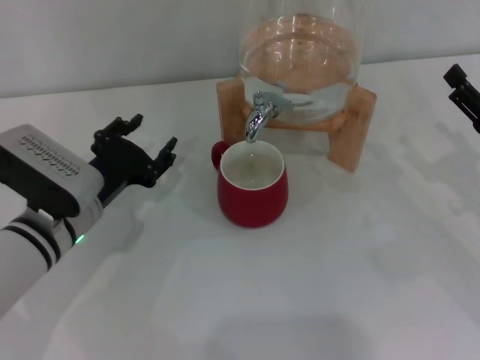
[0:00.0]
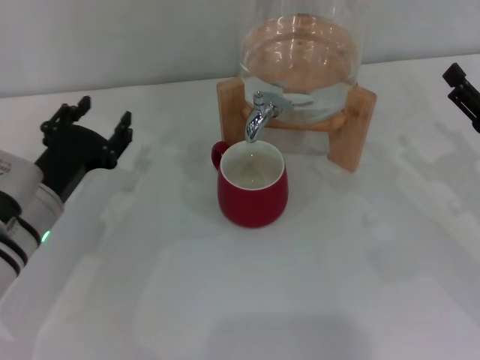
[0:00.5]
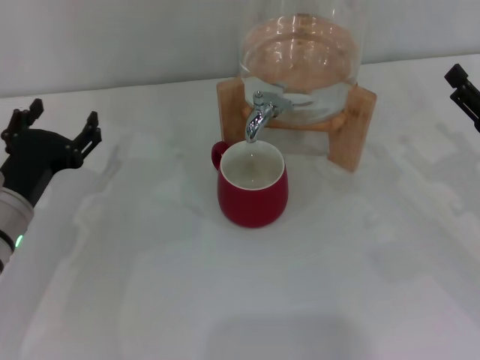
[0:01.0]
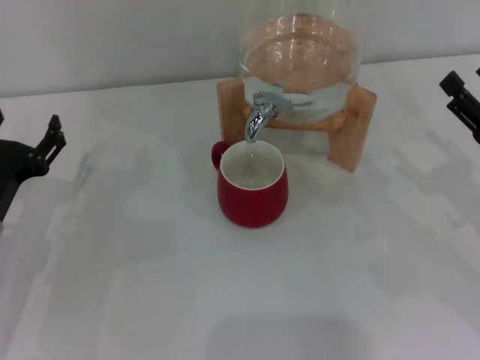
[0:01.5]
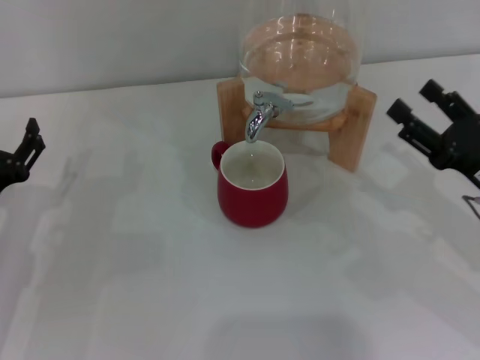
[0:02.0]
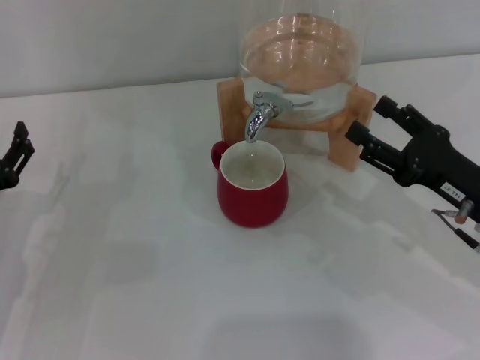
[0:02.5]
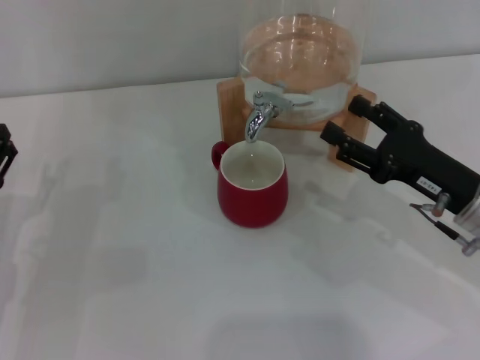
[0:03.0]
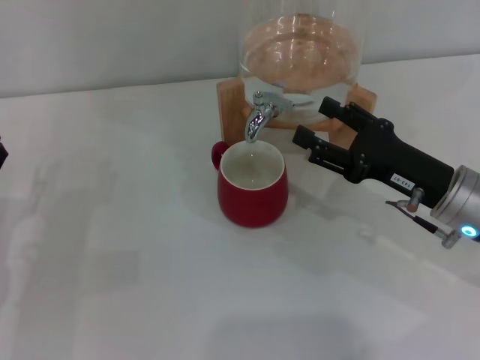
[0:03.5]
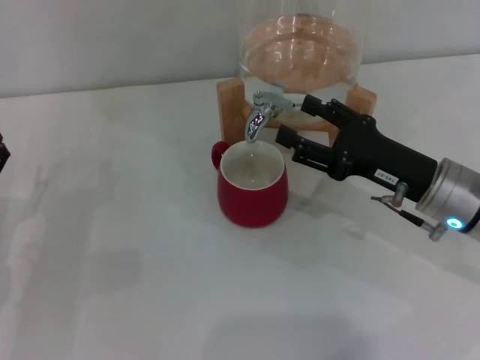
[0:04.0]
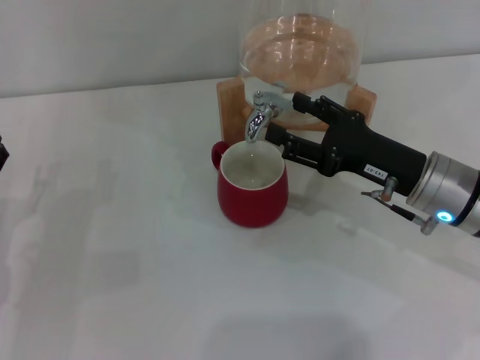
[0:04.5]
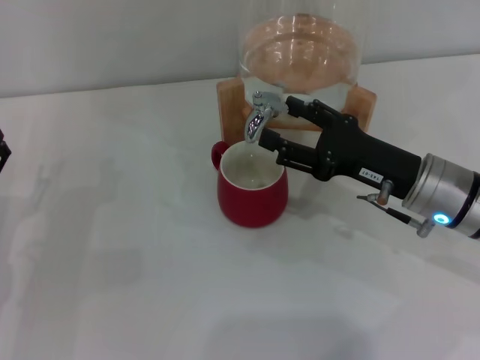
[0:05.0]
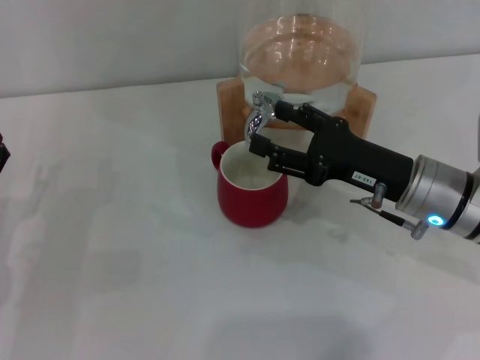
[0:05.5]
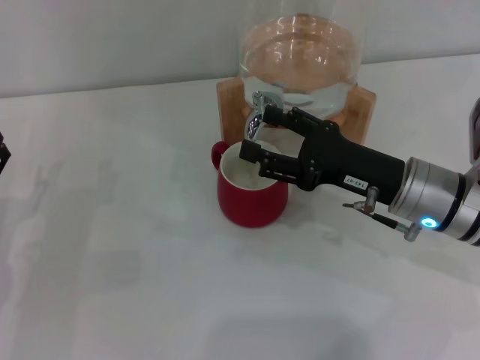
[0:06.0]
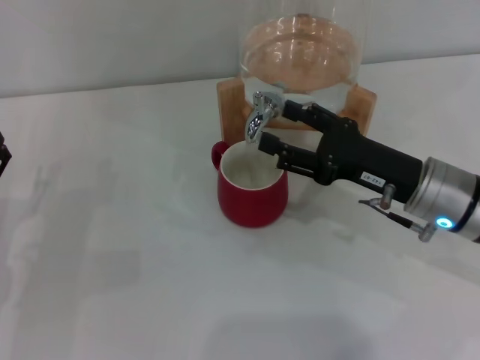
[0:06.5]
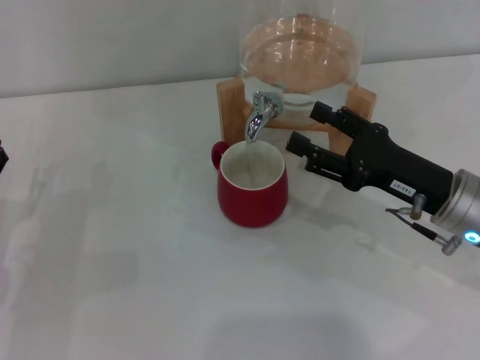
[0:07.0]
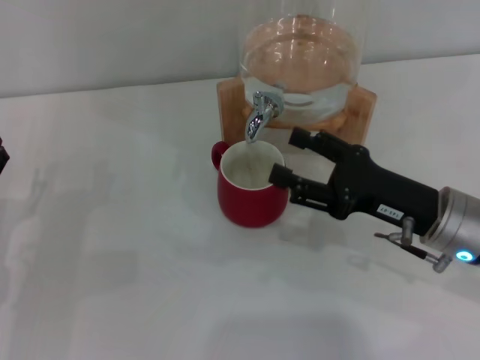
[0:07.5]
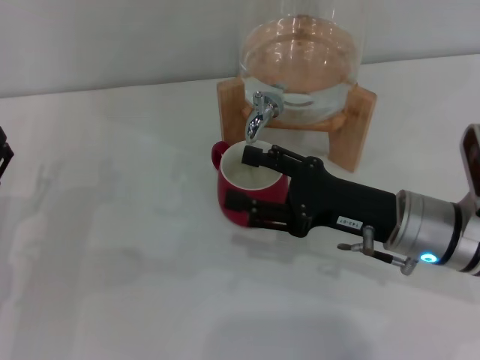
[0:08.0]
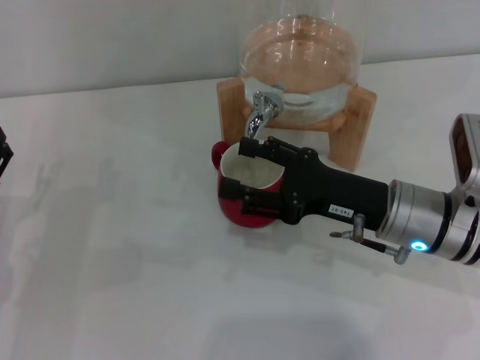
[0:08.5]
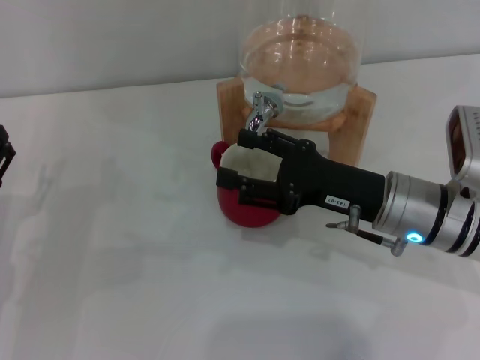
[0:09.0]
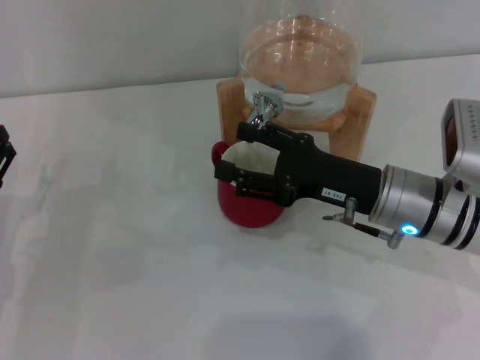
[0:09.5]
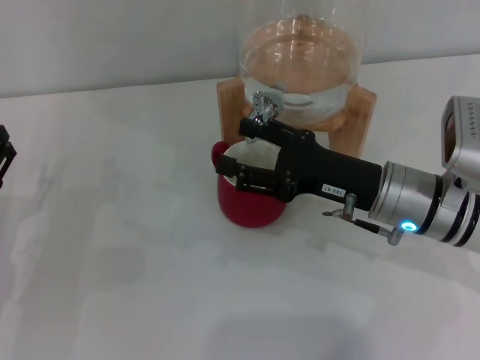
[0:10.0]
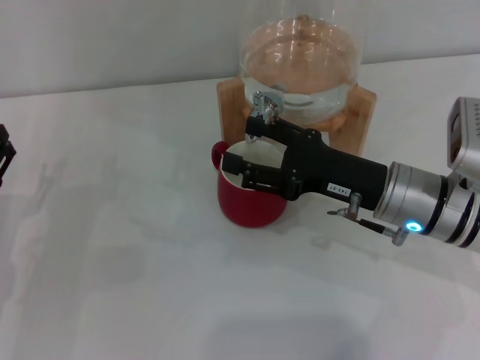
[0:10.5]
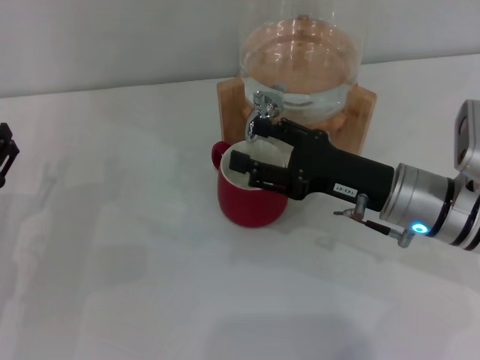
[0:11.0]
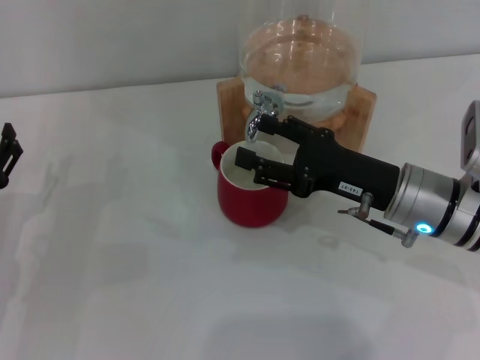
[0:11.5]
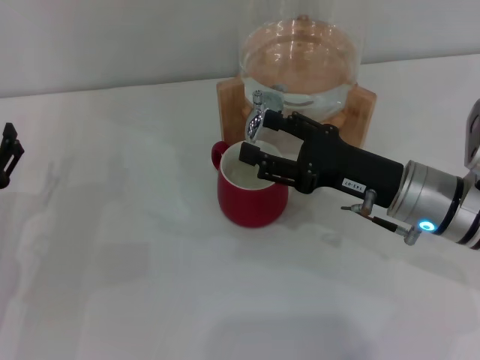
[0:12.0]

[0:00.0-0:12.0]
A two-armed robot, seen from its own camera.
Task of the whole recording: the left gripper pick up the red cup and place it horizontally under the faucet, the right gripper turn on the faucet to fill the cup, and then turn off the faucet.
Step, 0:00.0 to 0:09.0: Open the dispenser valve and fill the cup with water with the right gripper.
0:00.0 to 0:02.0: The left gripper travels to the left by approximately 10 cm.
0:02.0 to 0:04.0: The right gripper shifts about 5 cm to the left.
0:04.0 to 0:12.0: The grippers make only small movements.

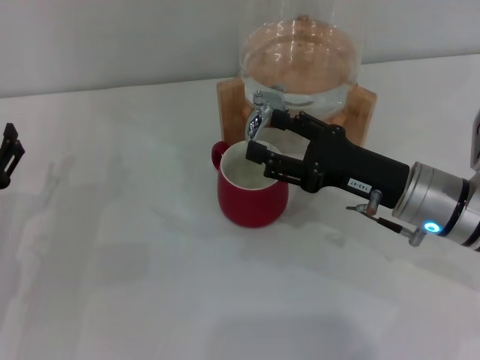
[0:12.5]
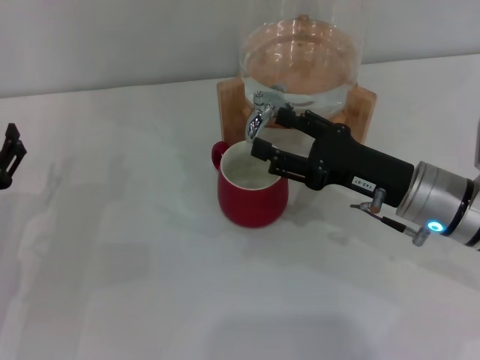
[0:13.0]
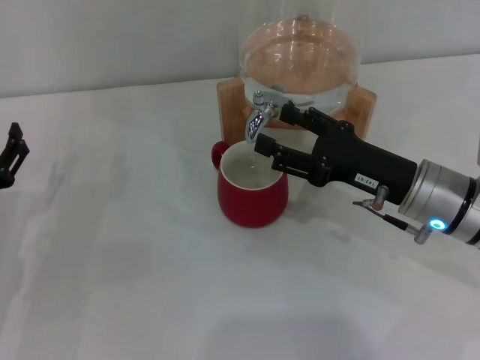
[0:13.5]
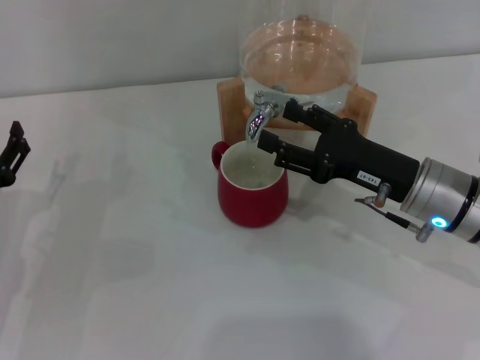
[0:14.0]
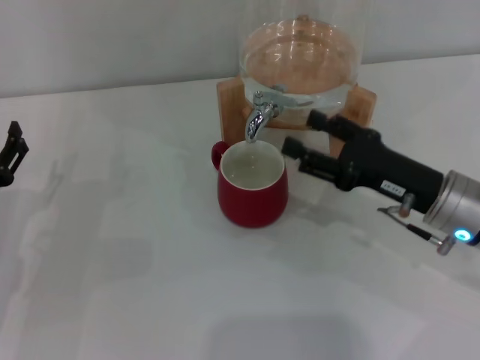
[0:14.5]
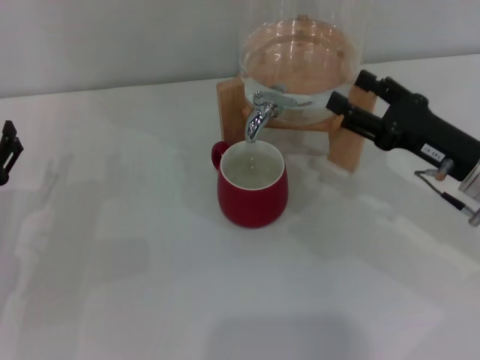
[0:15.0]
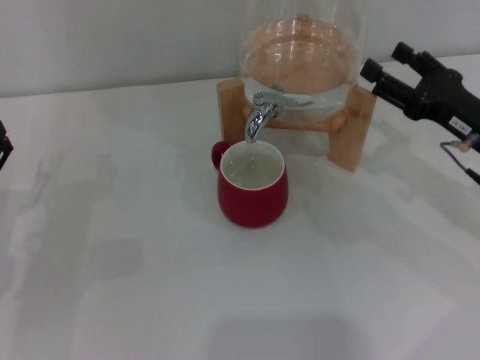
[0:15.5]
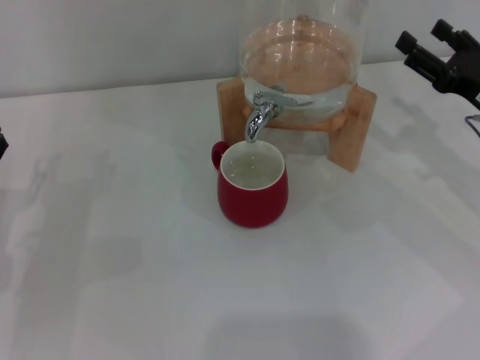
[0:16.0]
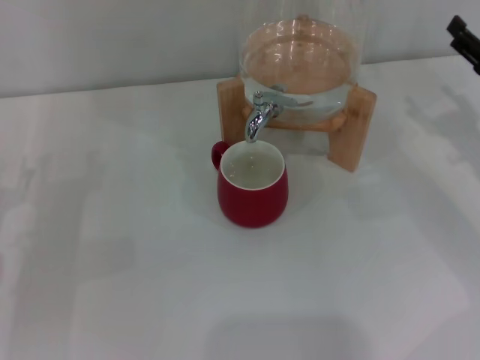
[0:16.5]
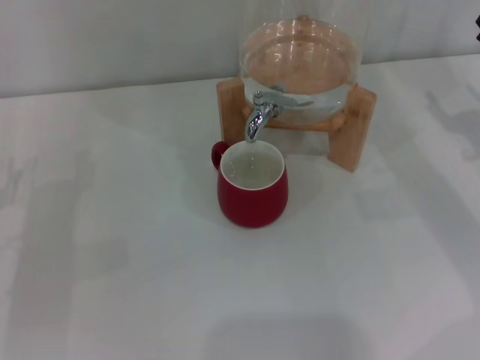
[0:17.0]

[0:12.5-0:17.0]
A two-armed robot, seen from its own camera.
Task of the whole recording: the left gripper pick up the red cup and place it horizontally under the faucet, the right gripper turn on the faucet to fill the cup, and then turn off the faucet.
Step, 0:12.5 to 0:14.5: Close the dispenser valve with the right gripper.
0:12.5 to 0:14.5: The grippers stay close to where they were, moving slightly.
0:14.5 to 0:17.0: The right gripper shifts about 15 cm to the right.

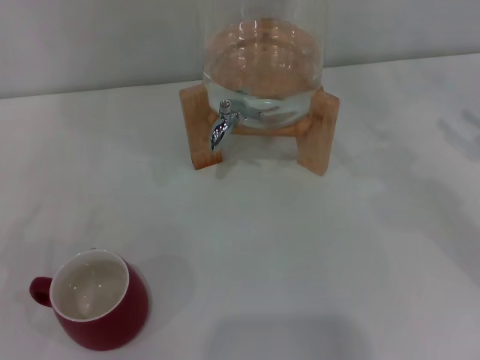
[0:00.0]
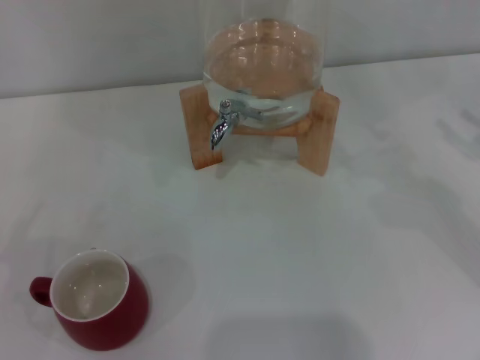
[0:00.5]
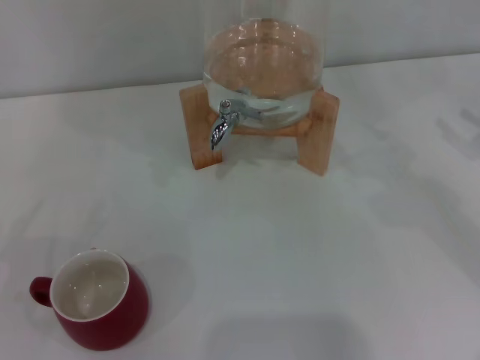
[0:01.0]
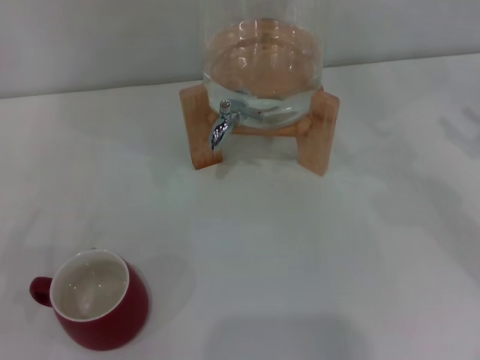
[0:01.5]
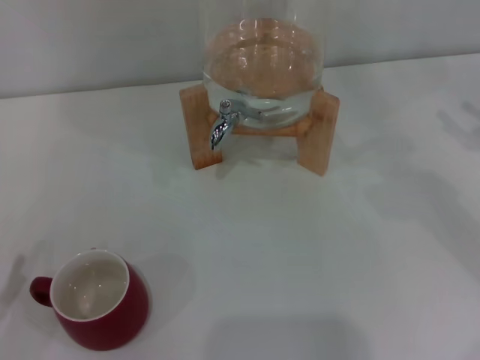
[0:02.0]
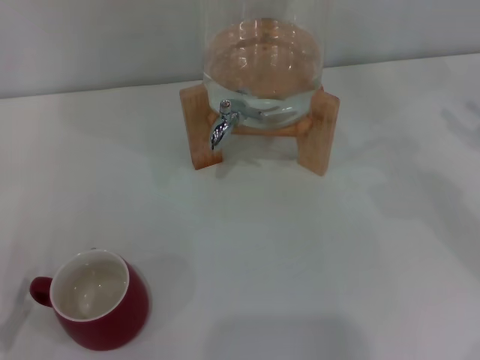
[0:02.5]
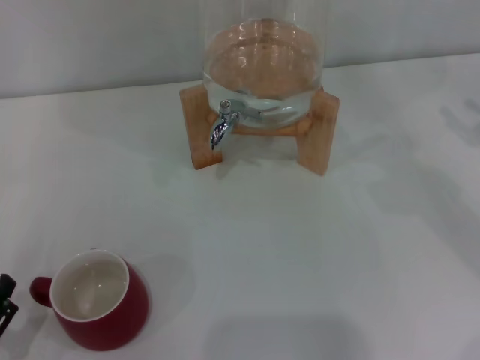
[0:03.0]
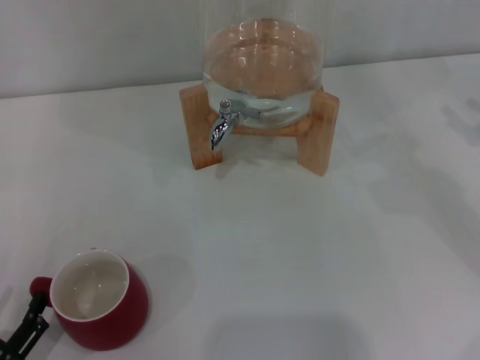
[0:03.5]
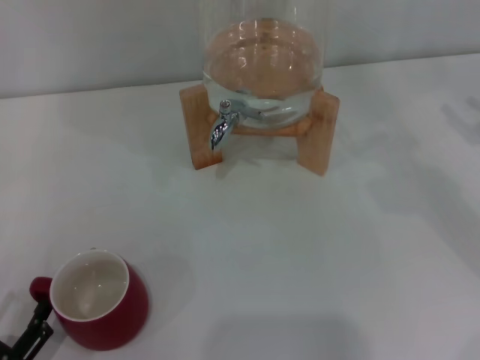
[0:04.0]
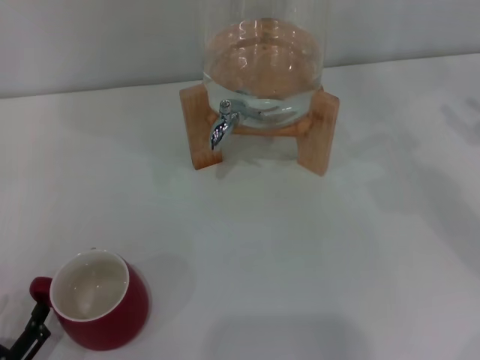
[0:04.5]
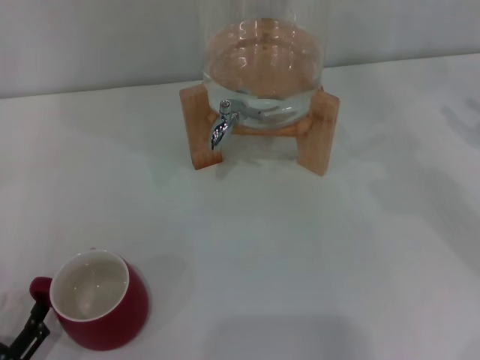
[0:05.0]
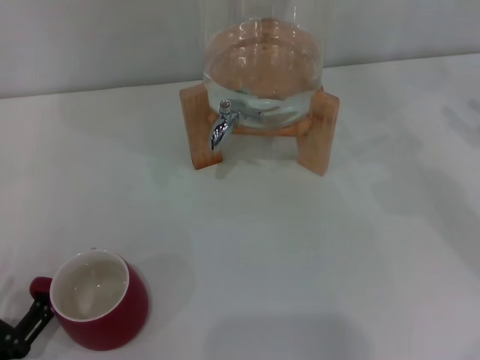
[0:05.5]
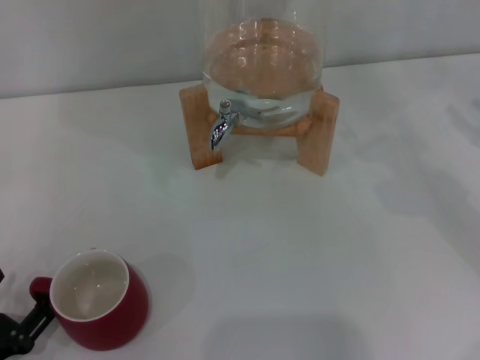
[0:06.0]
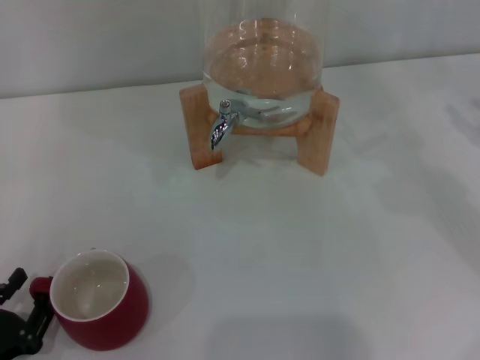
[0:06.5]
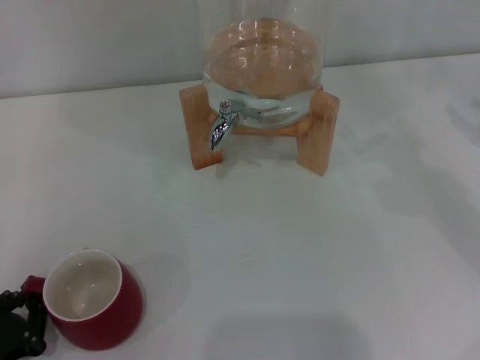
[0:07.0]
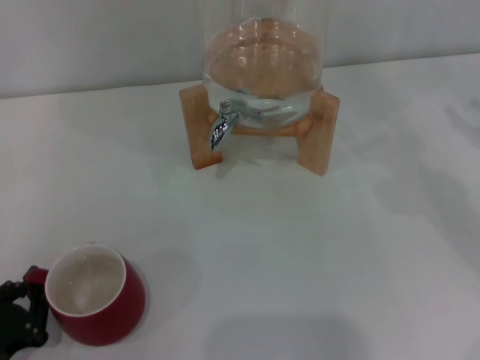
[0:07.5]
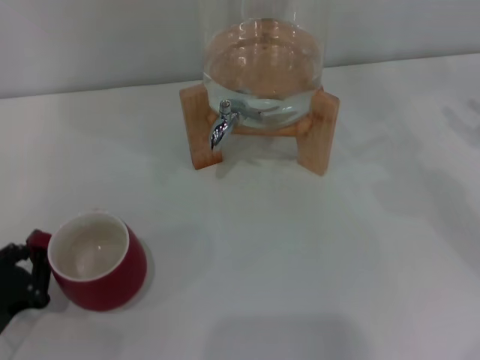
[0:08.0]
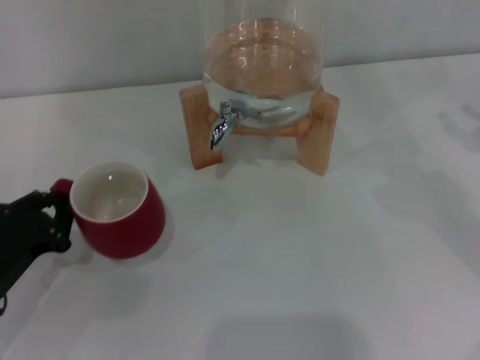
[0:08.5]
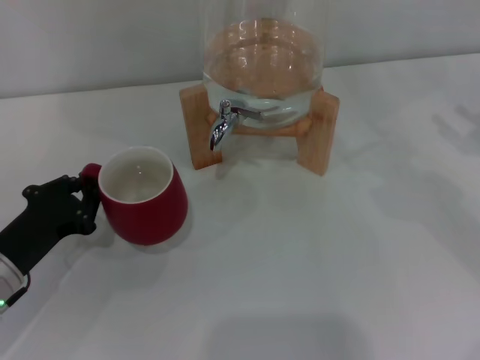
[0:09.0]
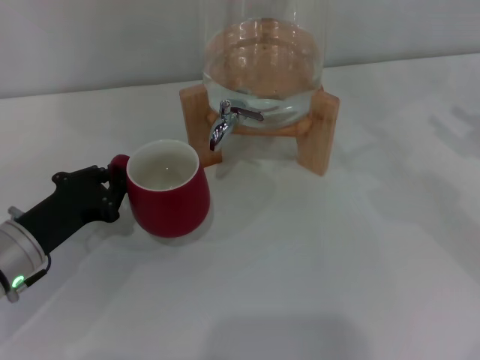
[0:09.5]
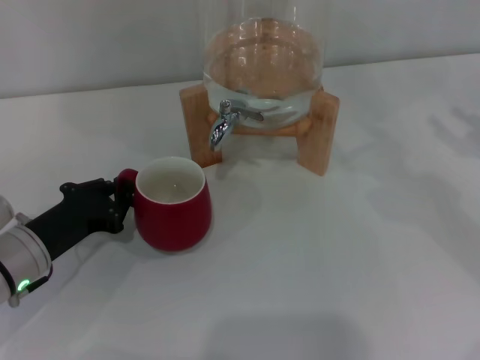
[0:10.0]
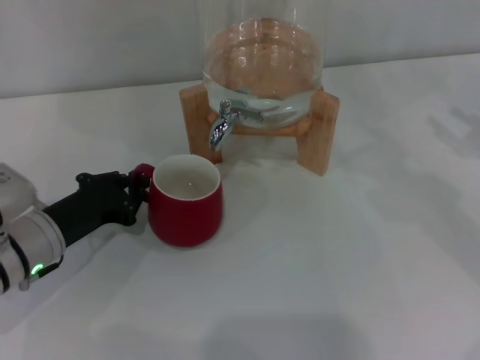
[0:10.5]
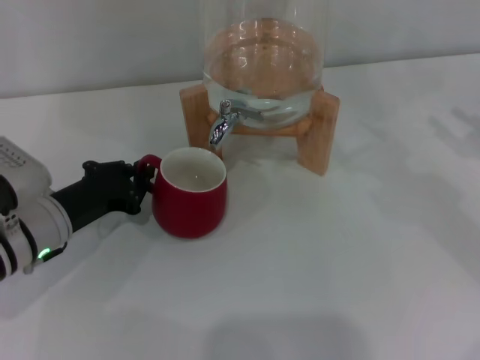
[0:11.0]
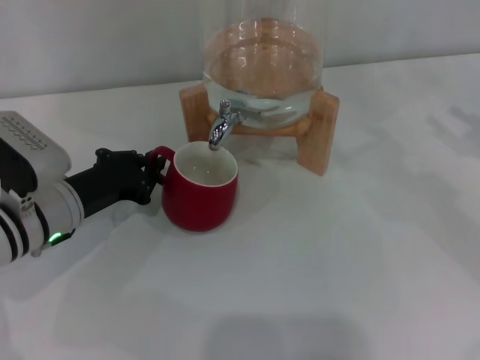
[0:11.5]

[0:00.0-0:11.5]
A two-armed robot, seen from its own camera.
Task of the whole recording: the left gripper pick up the red cup and place it horizontally under the faucet, the right gripper turn on the faucet to fill the cup, and then turn off the faucet.
0:02.0 to 0:04.0: The left gripper ends up about 5 cm from where it was.
0:04.0 to 0:06.0: There are only small adjustments of the grippers.
0:06.0 to 0:07.5: The left gripper closes its fingers.
0:07.5 to 0:09.5: The left gripper moves forward and to the right, roughly 15 cm.
0:09.5 to 0:11.5: The left gripper moves some 5 cm.
